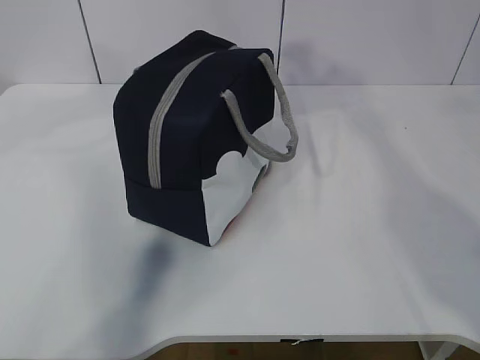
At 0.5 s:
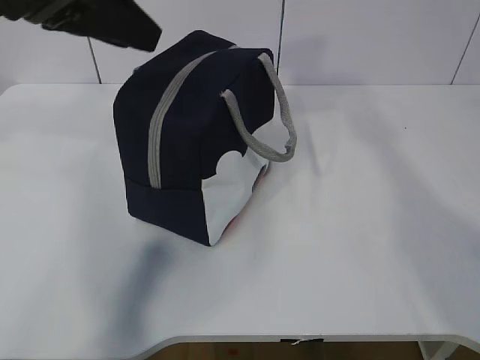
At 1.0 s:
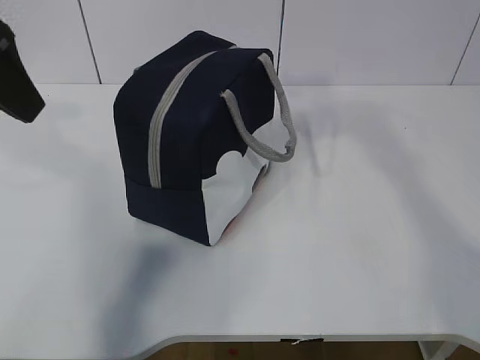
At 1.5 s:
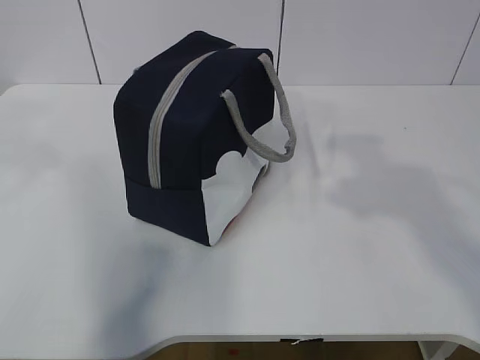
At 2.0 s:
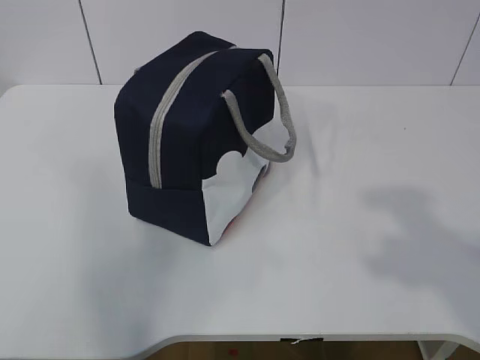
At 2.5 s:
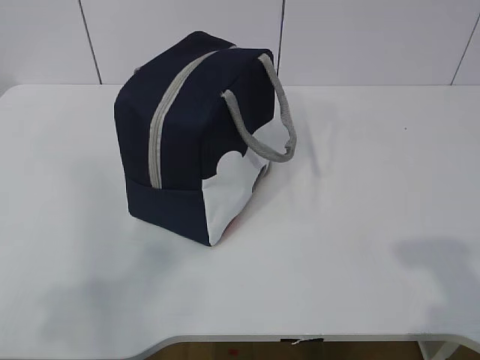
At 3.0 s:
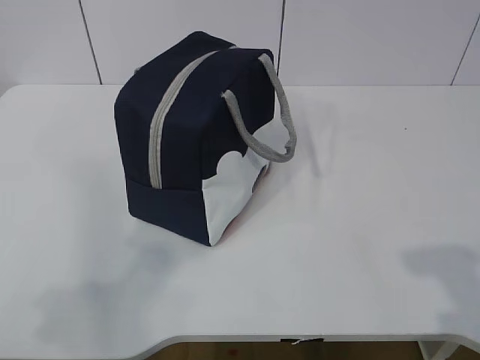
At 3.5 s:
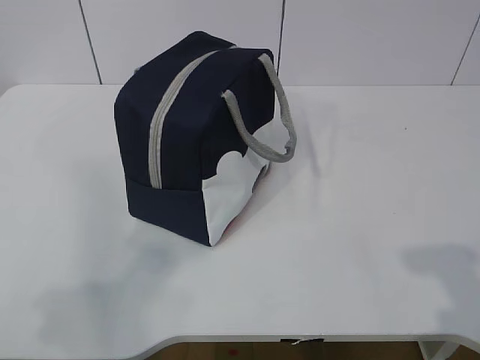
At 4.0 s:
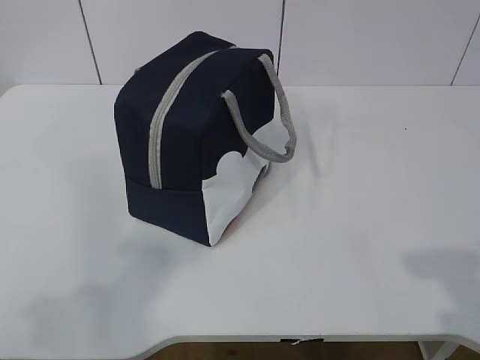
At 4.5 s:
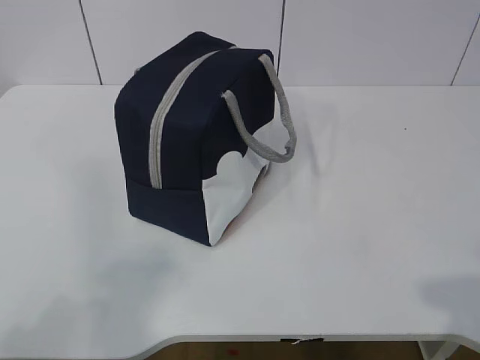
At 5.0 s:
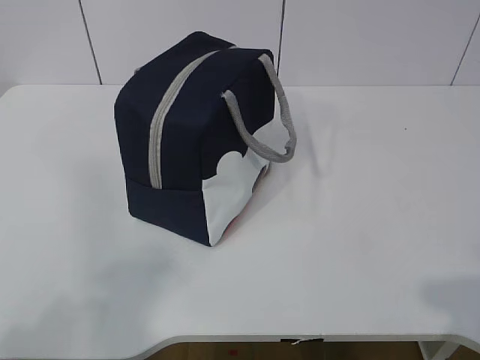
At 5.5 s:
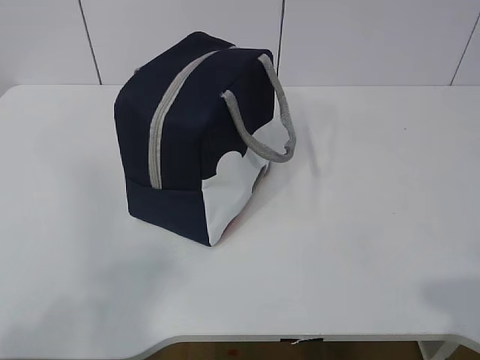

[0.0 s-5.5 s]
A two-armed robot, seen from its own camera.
0.0 to 2.0 s: The left gripper shifts approximately 30 cm backward and to the left. Meanwhile the right gripper goes some 30 cm backward.

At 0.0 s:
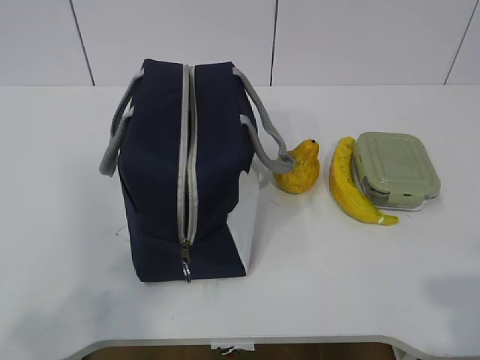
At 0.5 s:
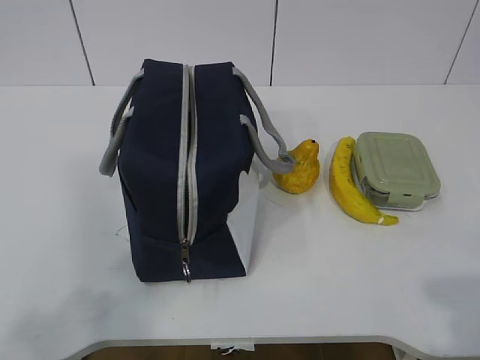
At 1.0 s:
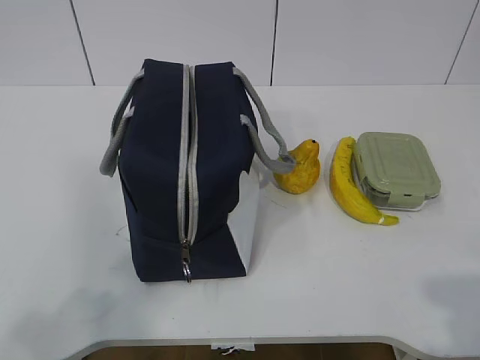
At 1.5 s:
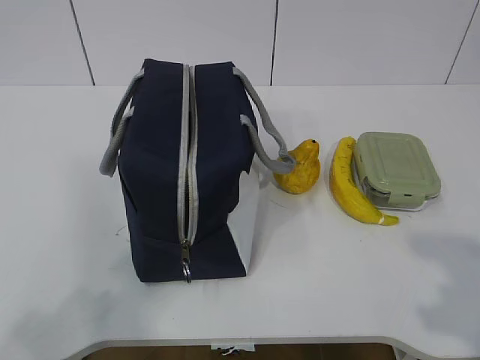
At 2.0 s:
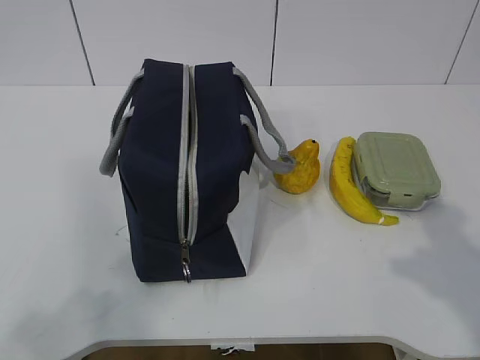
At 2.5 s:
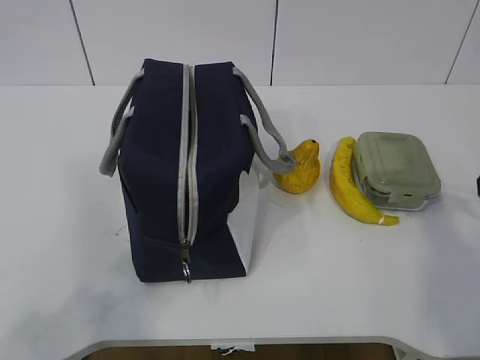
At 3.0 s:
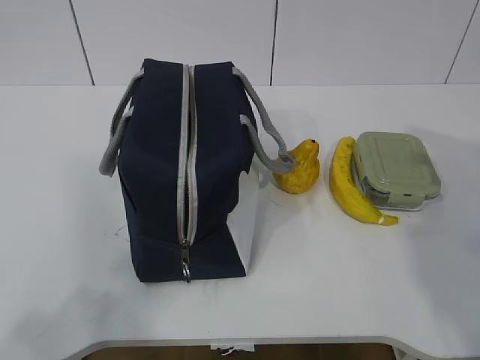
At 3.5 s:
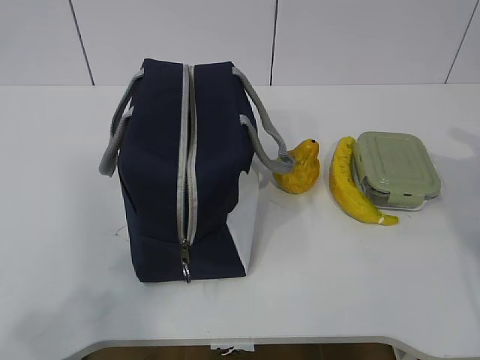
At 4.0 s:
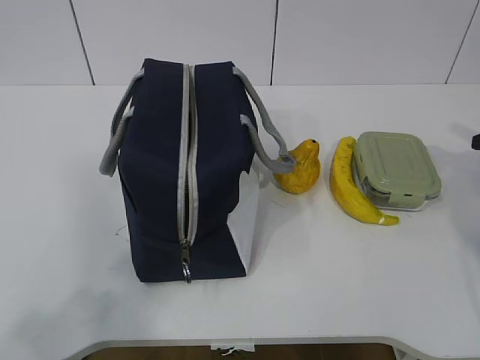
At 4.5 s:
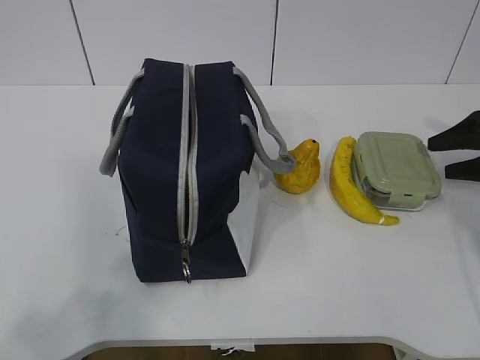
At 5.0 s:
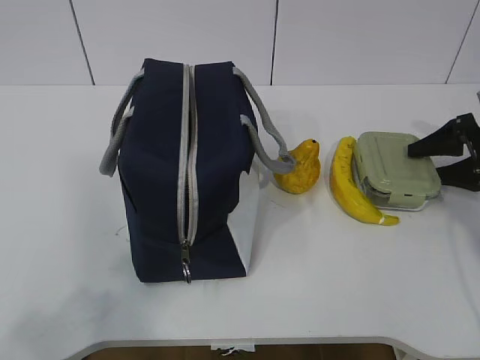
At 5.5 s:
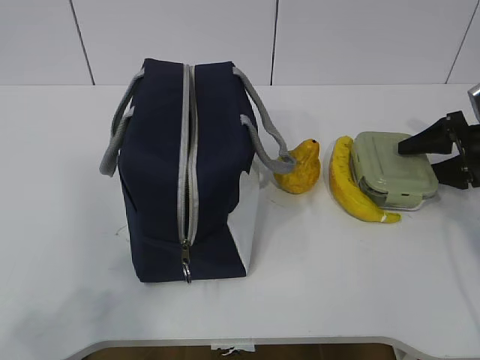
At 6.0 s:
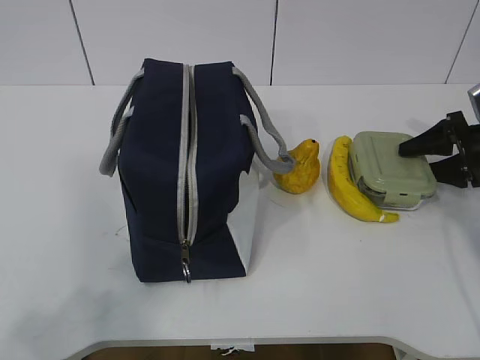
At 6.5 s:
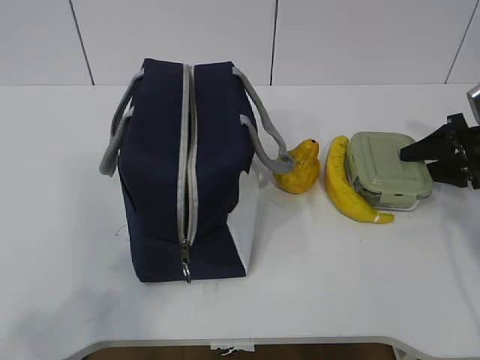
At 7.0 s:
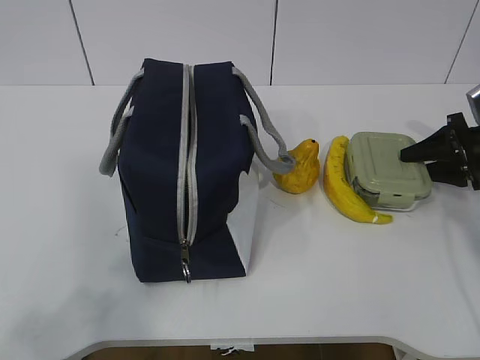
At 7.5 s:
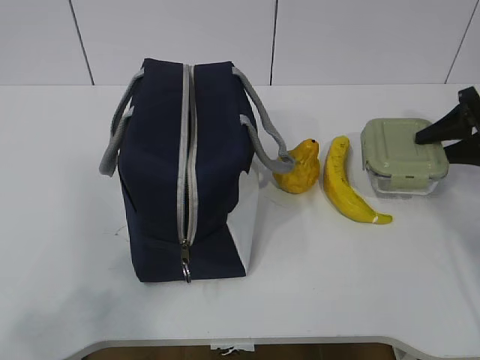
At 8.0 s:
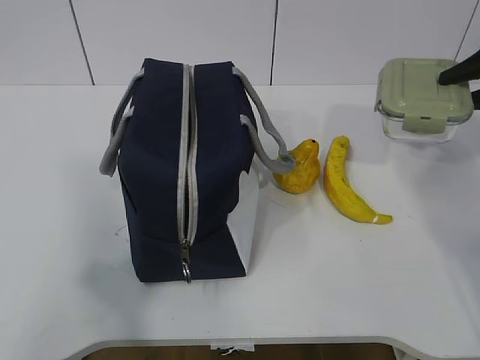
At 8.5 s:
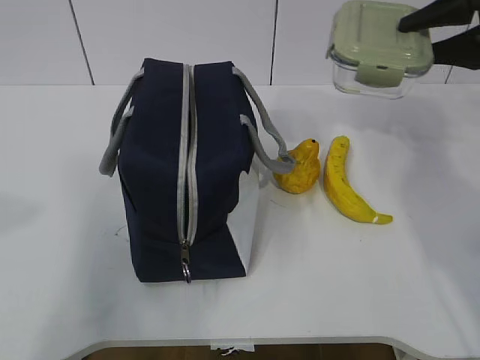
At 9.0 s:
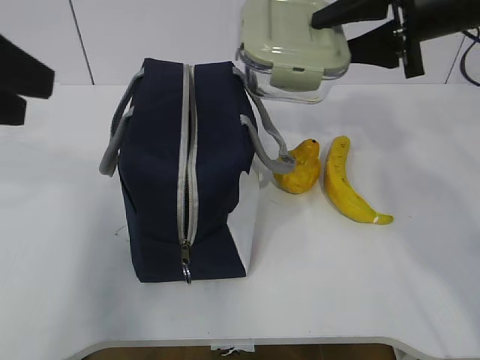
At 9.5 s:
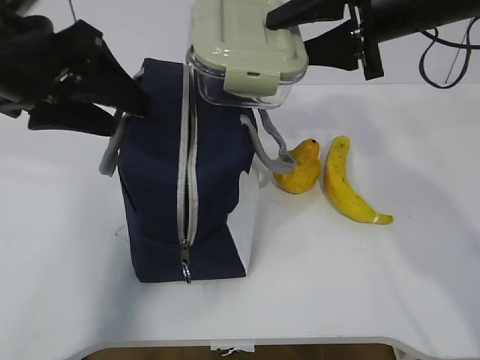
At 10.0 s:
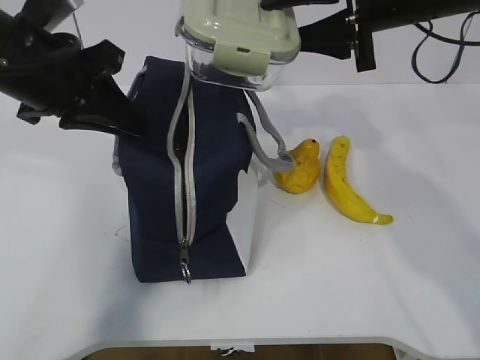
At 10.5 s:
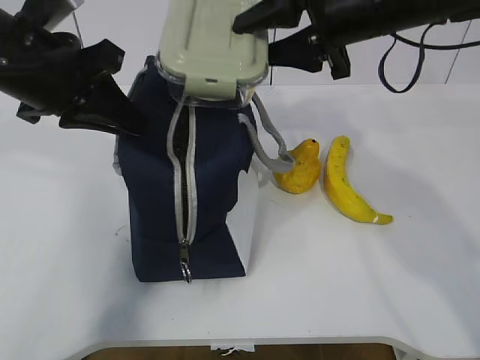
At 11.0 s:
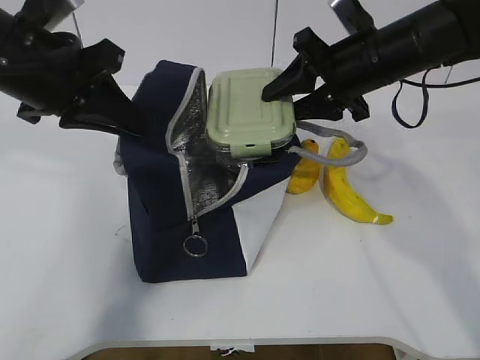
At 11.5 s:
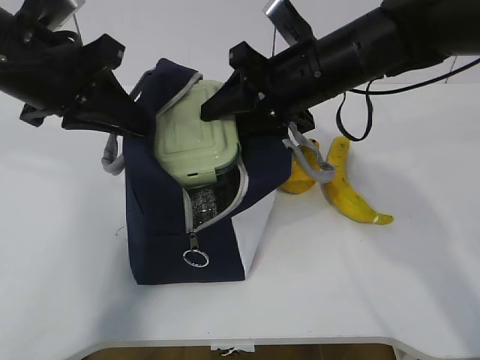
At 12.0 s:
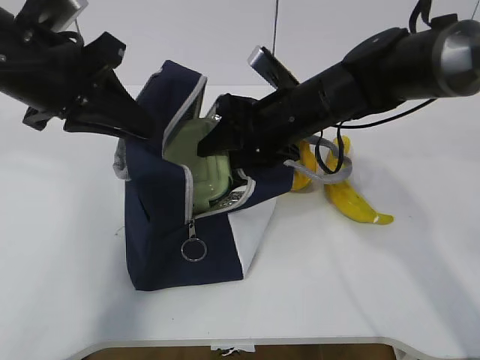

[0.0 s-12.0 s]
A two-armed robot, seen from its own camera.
Step, 0.0 to 6.0 s: Grab the lunch box with your right hand.
Step, 6.5 to 8.5 s: Grab the lunch bag with your left hand.
Step, 9.0 to 11.5 s: Place it into the bag with your right hand.
2.0 to 4.0 s: The right gripper goes some 30 cm forward and to the right, and opens up.
4.0 to 6.0 s: The right gripper heads forward and downward, covering approximately 10 cm.
6.0 to 8.0 s: The right gripper shifts about 15 cm upward.
8.0 to 10.0 s: The left gripper travels forward and to the right by some 30 cm, and closes its fingers; the right gripper heads to the left, covering approximately 20 cm.
10.0 to 12.0 s: The right gripper moves downward and to the left, approximately 15 cm.

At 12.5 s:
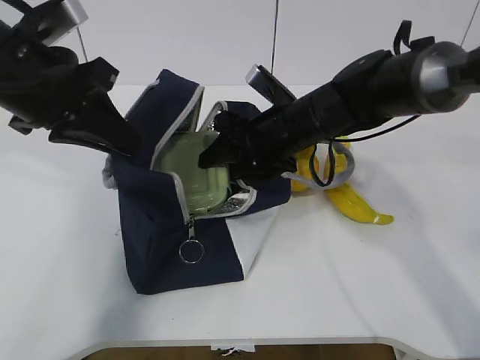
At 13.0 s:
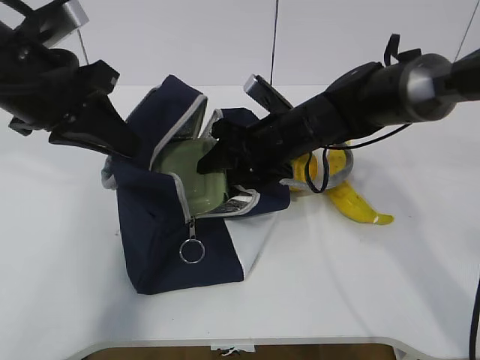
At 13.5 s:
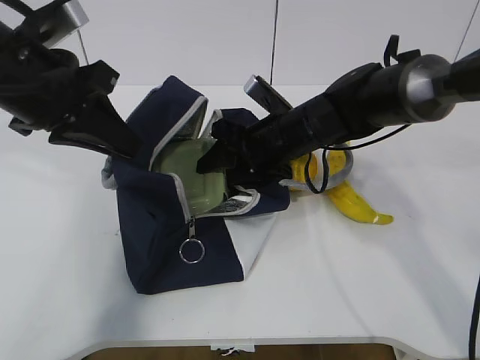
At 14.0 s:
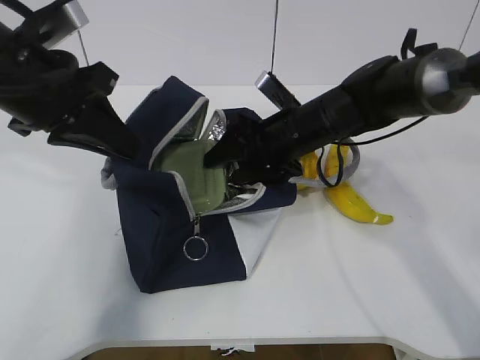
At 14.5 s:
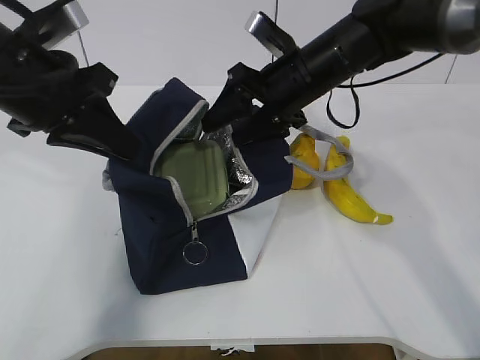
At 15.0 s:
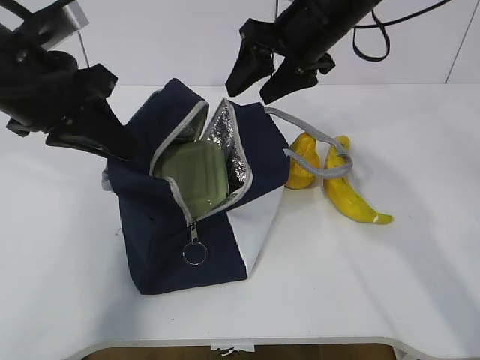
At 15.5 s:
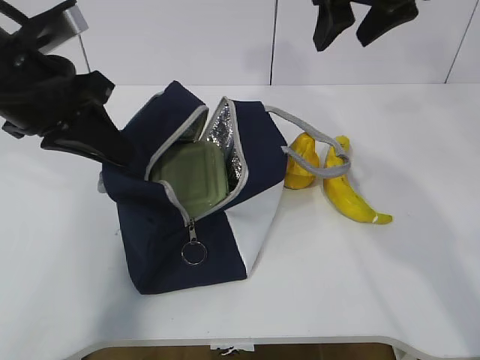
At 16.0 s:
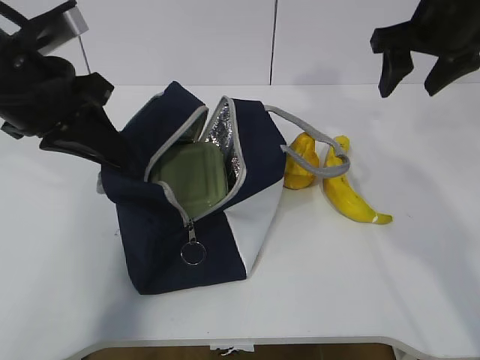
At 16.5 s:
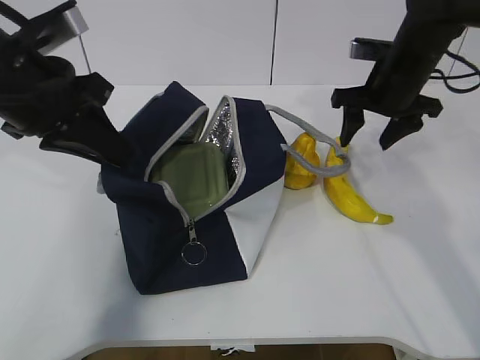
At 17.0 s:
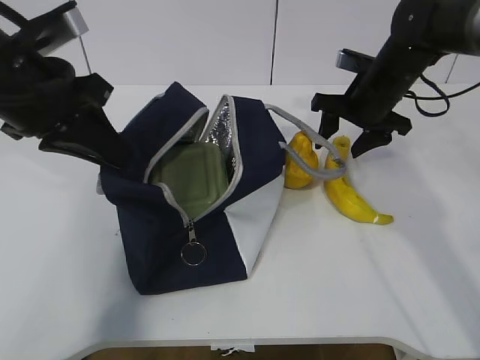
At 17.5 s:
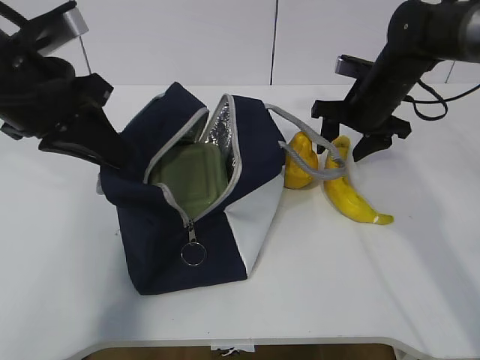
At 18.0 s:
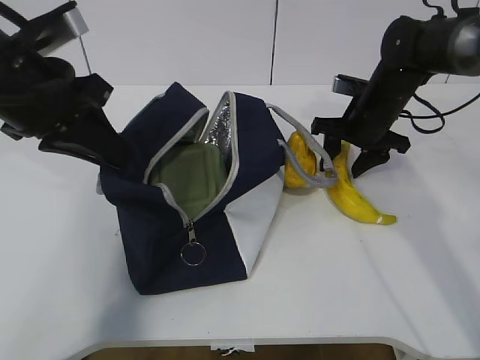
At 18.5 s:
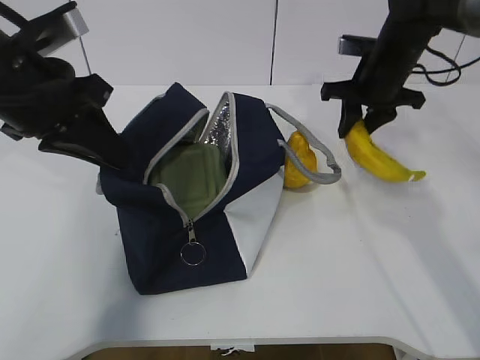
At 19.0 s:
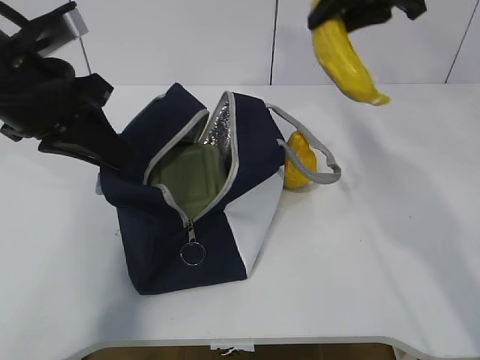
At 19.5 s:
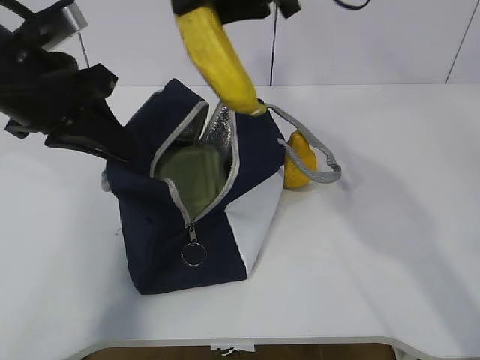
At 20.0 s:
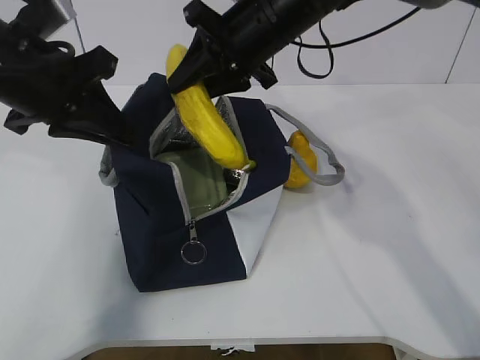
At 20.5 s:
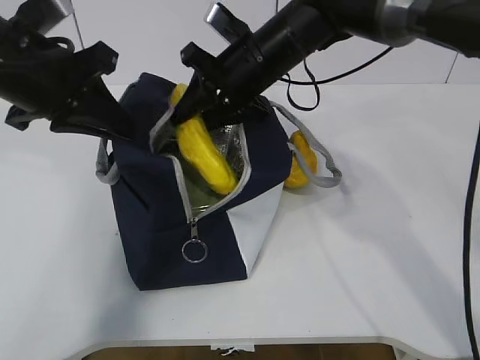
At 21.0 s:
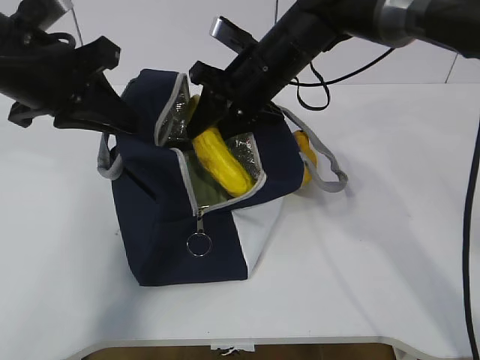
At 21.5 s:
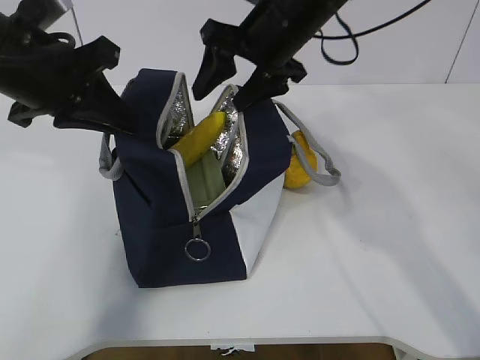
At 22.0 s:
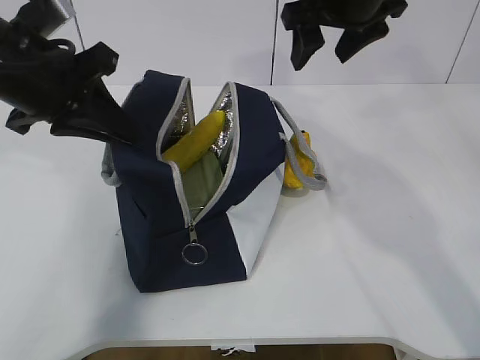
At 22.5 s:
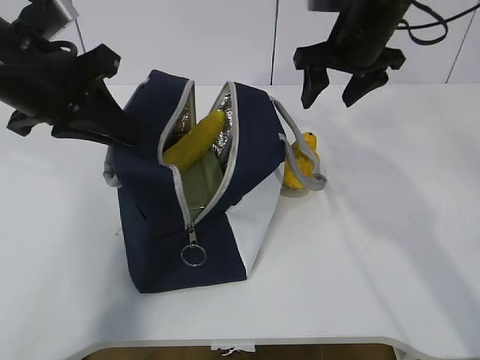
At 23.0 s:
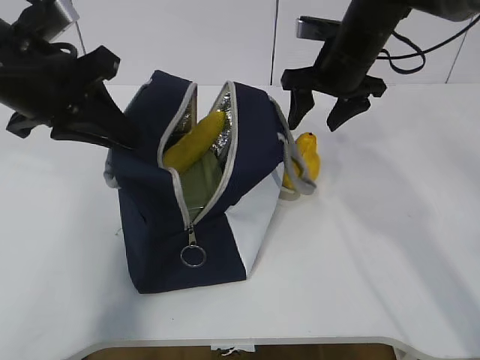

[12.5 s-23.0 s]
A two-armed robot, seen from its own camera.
Step, 12.5 to 15.0 s: Grab the banana with your right hand.
Step, 15.5 to 17.5 s: Place it into the bag with your right hand.
Step, 18.0 to 20.0 s: Grab the pear with your right hand.
12.5 to 14.5 s: The right gripper is displaced upward by about 5 cm.
14.5 to 16.5 s: The right gripper shifts some 10 cm to the right, and goes upward and returns, some 15 cm each way.
16.5 to 19.0 s: The right gripper shifts roughly 15 cm upward, and closes its fingers.
19.0 to 21.0 s: The right gripper moves to the left and downward, some 20 cm.
21.0 to 23.0 s: The right gripper shifts some 10 cm to the right, and opens its fingers.
